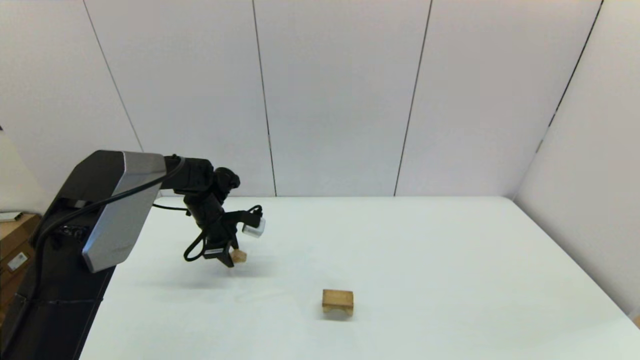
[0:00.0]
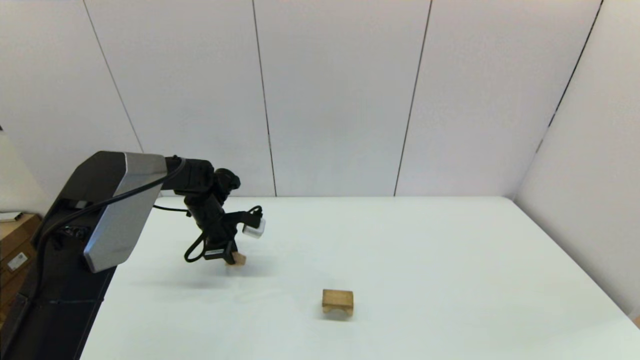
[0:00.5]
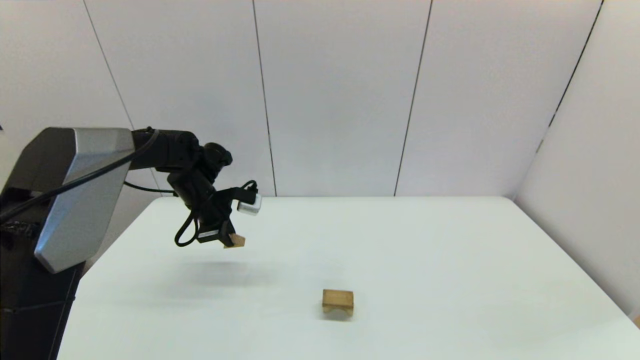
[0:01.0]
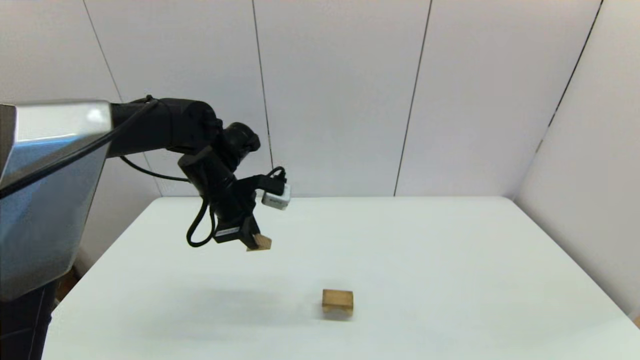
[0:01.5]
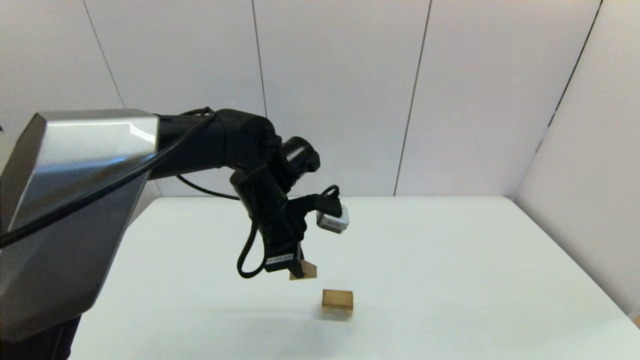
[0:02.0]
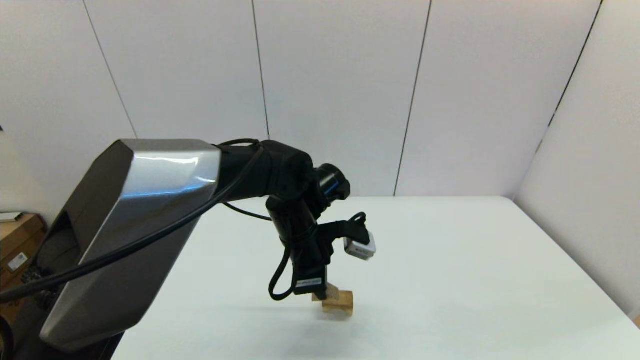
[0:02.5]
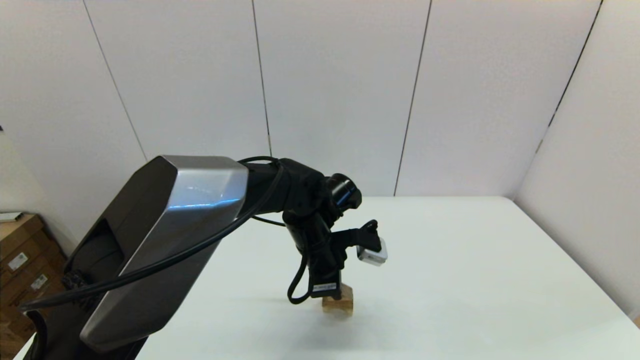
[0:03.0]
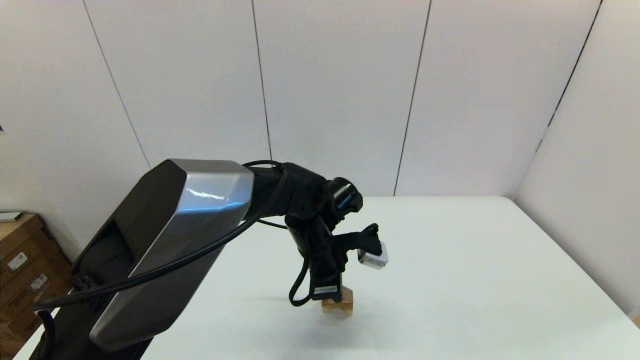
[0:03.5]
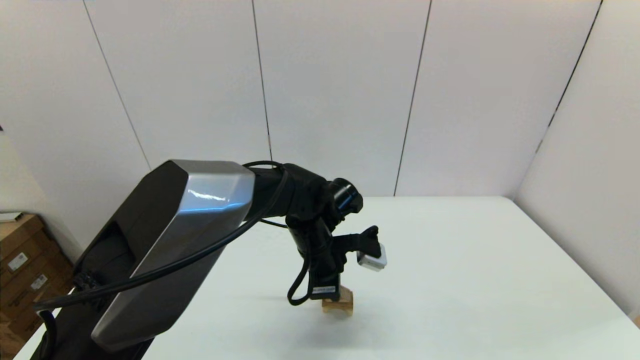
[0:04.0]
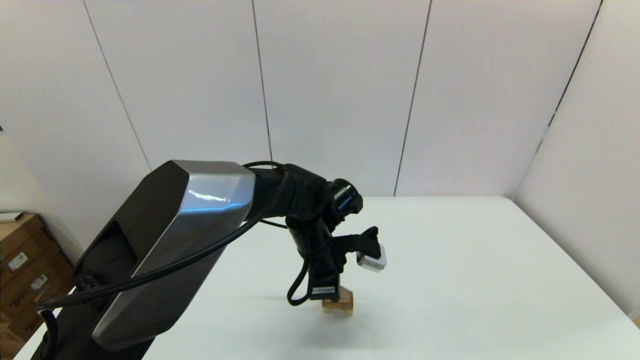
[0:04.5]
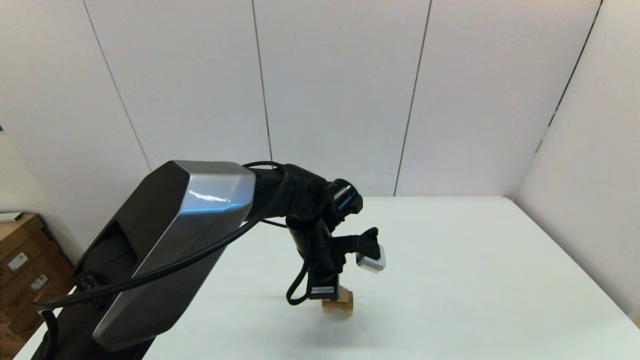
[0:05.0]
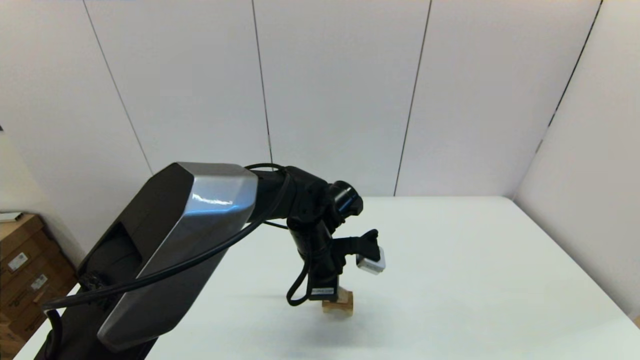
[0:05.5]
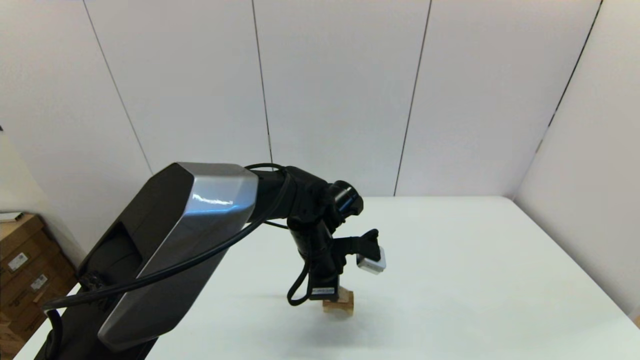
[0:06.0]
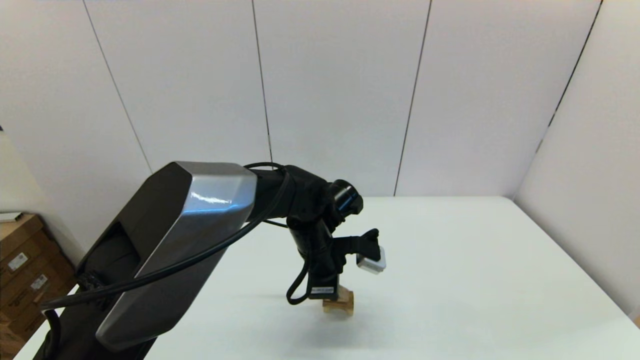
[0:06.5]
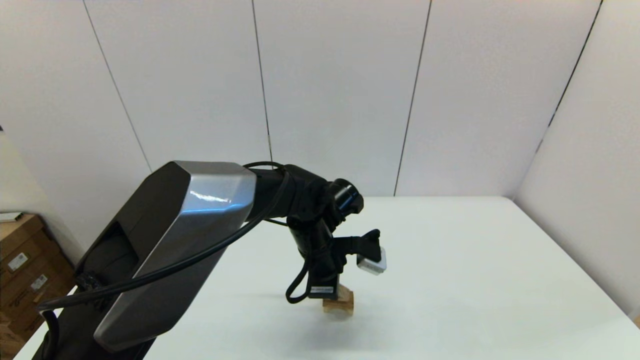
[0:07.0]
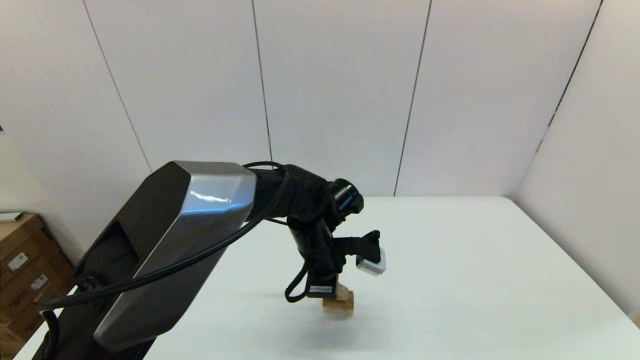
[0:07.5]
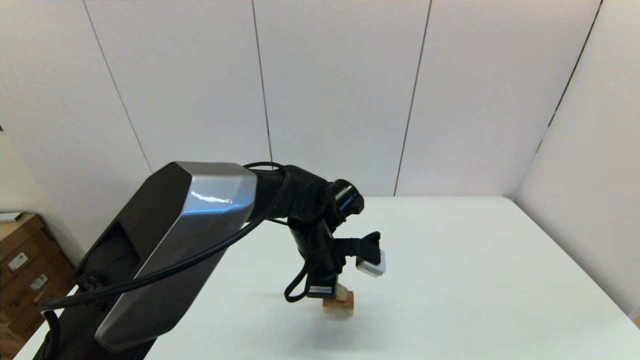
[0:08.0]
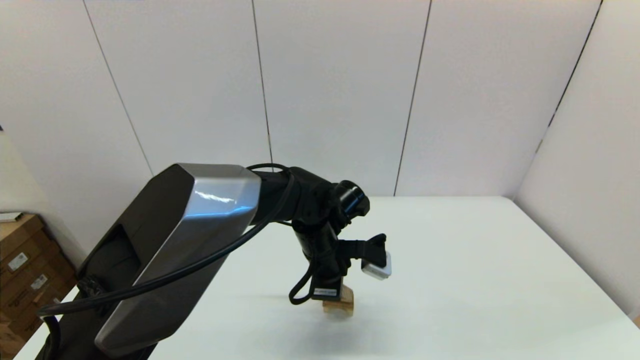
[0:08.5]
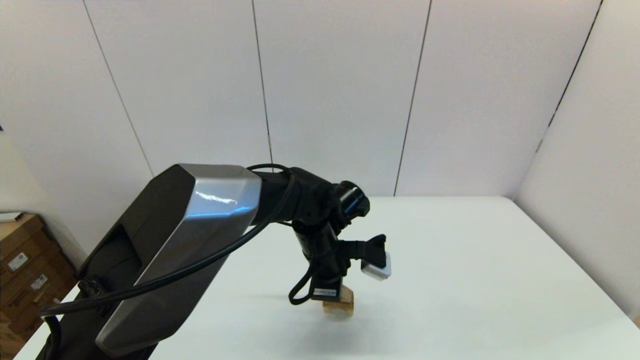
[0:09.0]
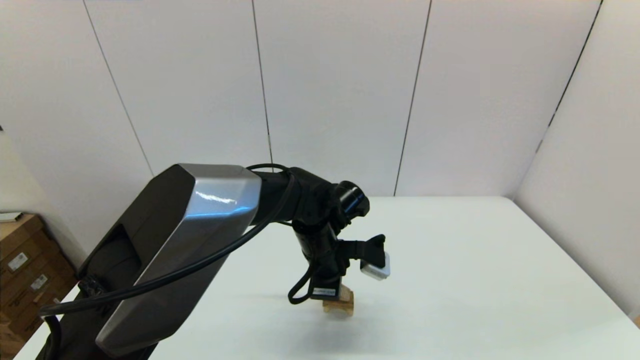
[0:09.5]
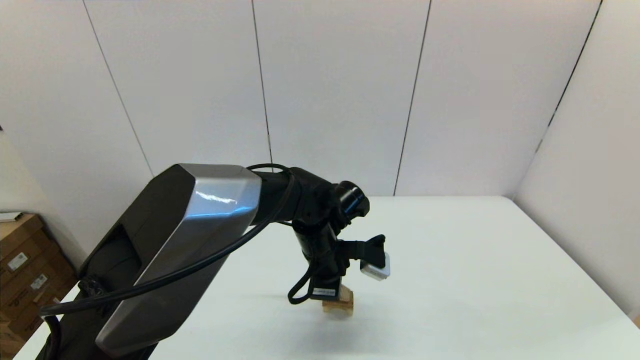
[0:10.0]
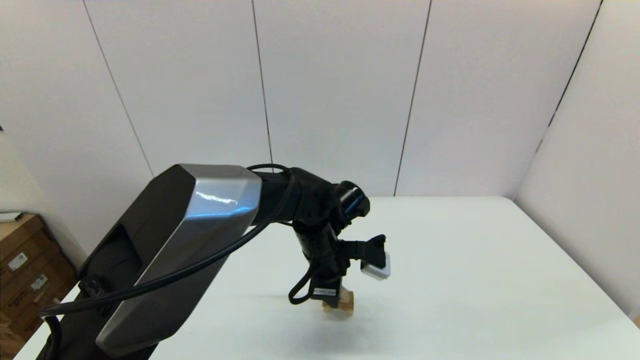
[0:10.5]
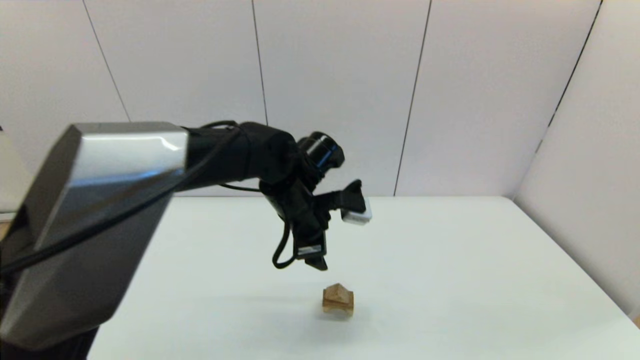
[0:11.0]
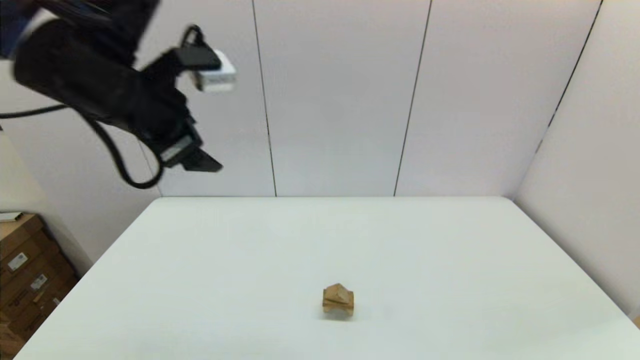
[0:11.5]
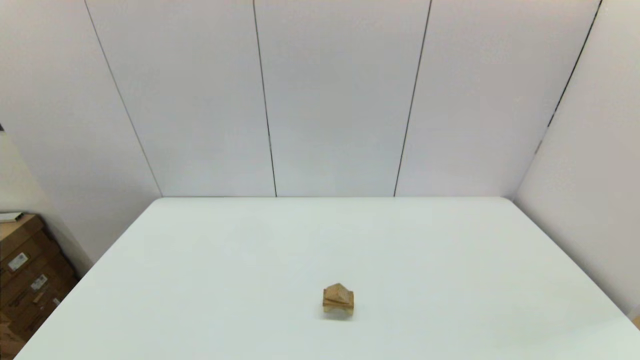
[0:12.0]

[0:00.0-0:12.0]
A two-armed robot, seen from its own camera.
Task of the whole recording: place the arched building blocks in the center of the table, set up the rectangular building blocks, and then set up the triangular building blocks.
0:00.0 to 0:02.0: The left gripper travels to the right, backward and upward by roughly 25 cm.
0:02.0 to 0:04.0: The left gripper heads downward and to the right, covering roughly 10 cm.
0:04.0 to 0:06.0: Both grippers stay put.
0:06.0 to 0:08.0: The grippers make only small movements.
0:08.0 to 0:10.0: Both grippers stay put.
0:10.0 to 0:12.0: The left gripper shifts approximately 50 cm to the left, upward and backward, and opens its fingers.

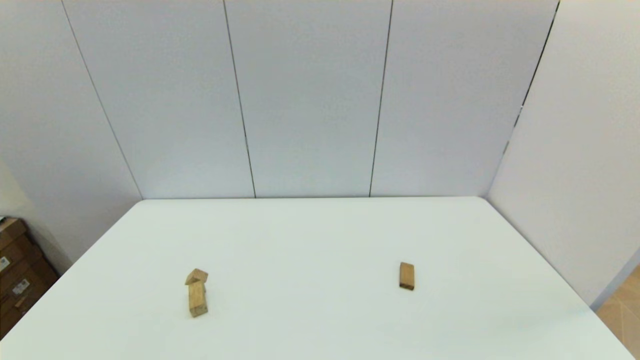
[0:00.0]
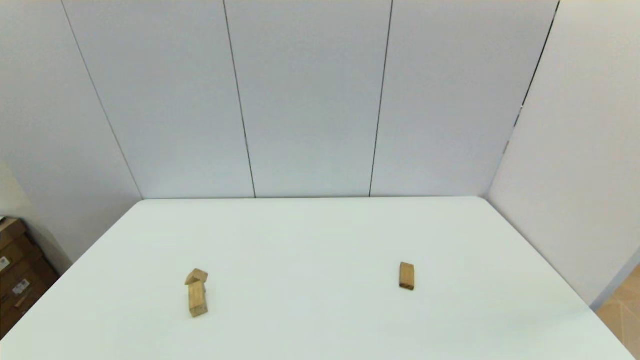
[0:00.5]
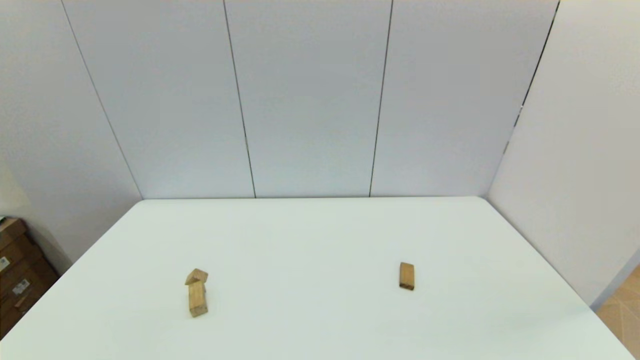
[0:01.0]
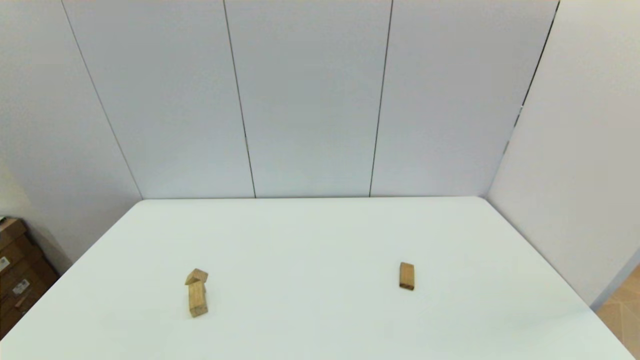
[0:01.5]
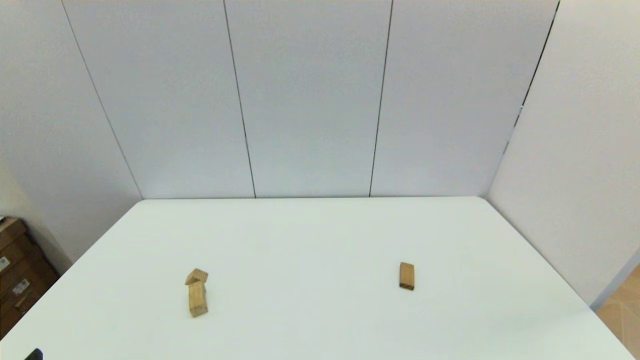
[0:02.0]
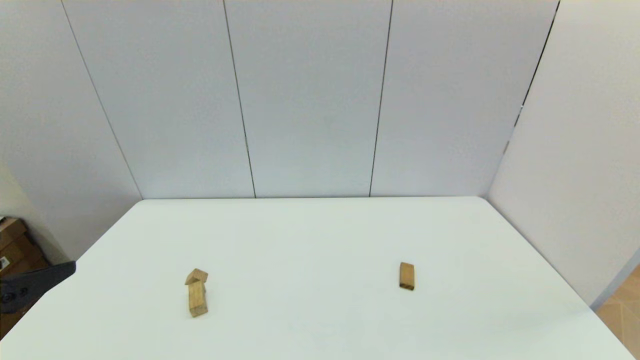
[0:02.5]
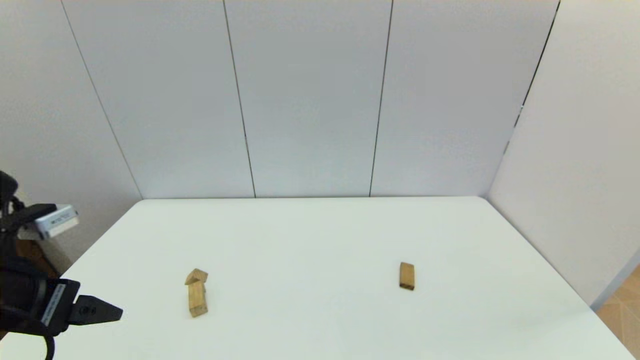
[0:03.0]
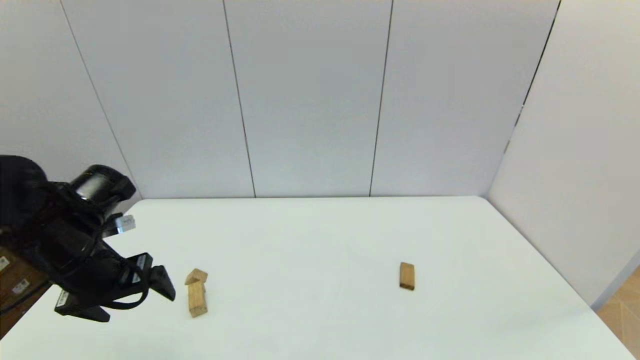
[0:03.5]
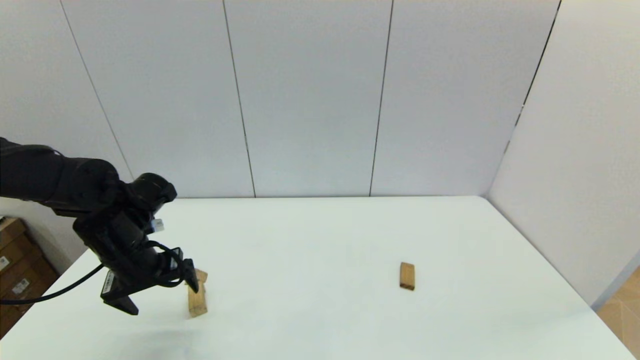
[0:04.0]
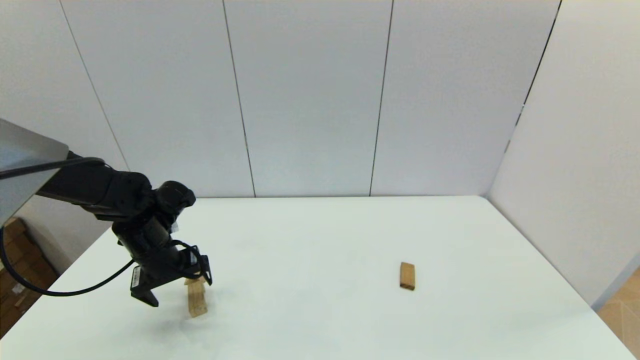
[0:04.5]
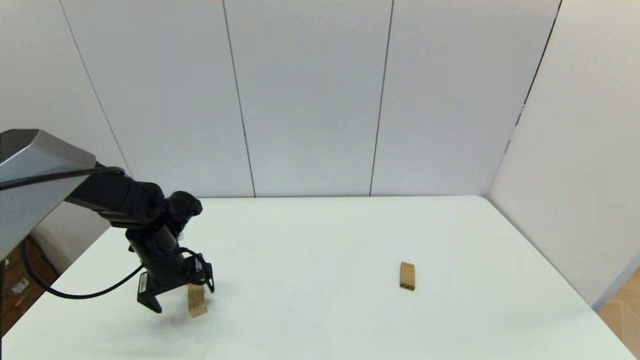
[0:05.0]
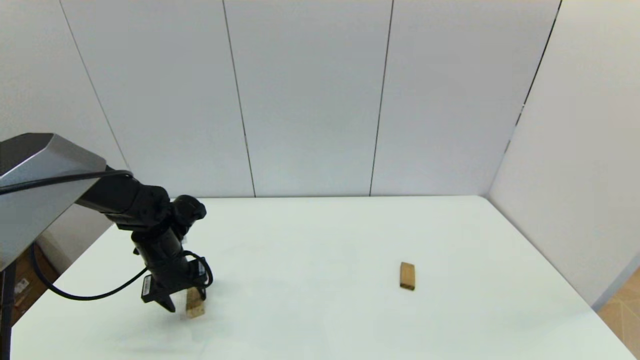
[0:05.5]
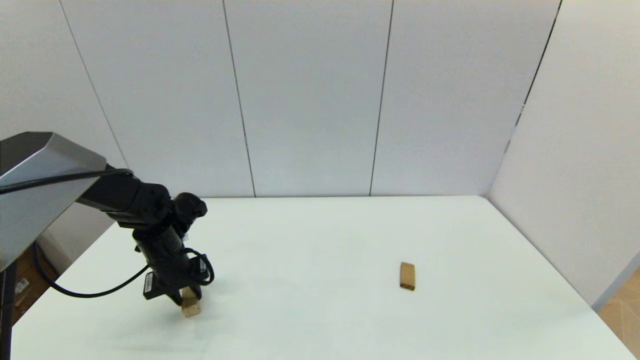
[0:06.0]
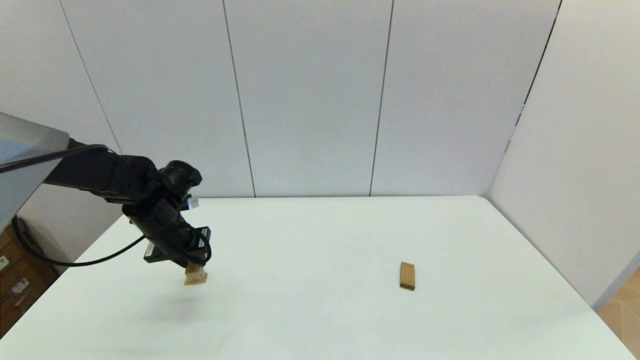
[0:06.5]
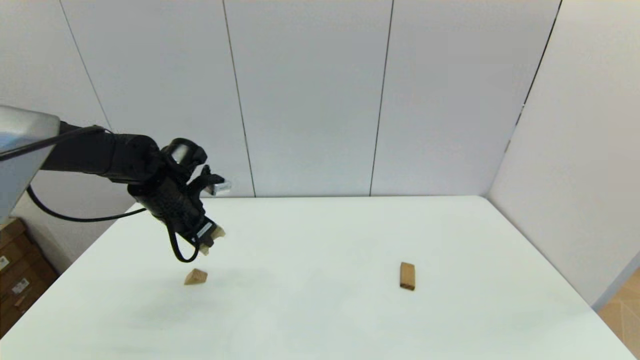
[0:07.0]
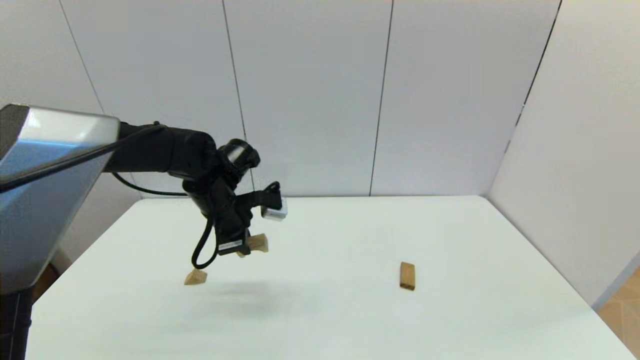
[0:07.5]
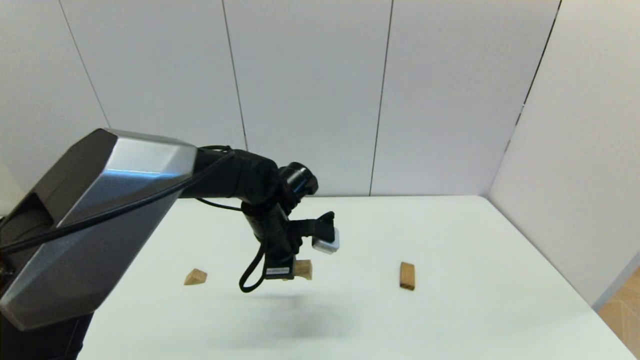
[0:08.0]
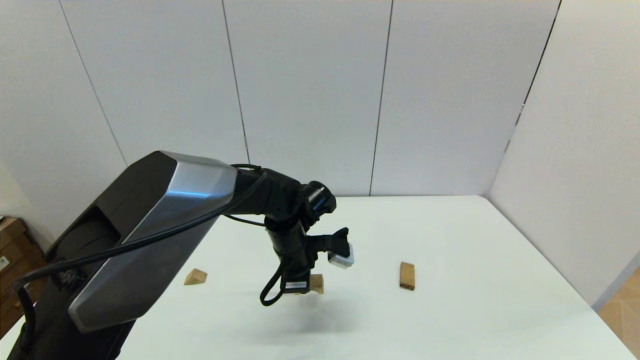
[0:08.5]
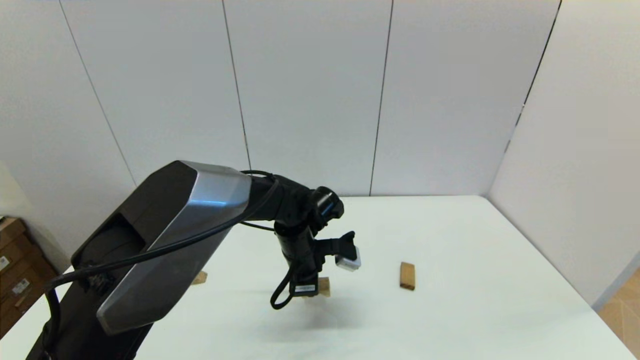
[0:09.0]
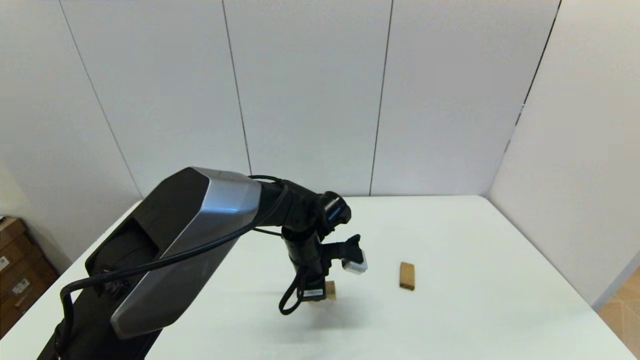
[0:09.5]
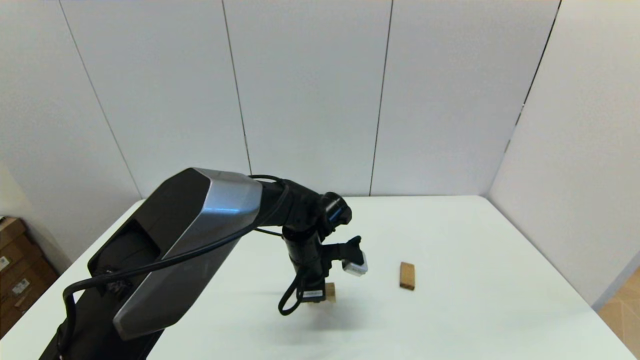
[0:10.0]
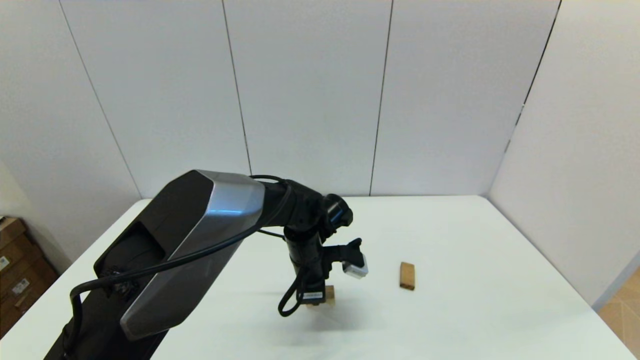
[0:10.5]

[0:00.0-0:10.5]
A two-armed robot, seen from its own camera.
Task of the whole recording: place the arched building blocks in the center of the table, set up the rectangular building blocks, and then set up the triangular building blocks.
Step, 0:02.0 to 0:05.5: Grasp the arch-shaped block with the left gripper.
0:02.0 to 0:04.0: The left gripper shifts some 30 cm forward.
0:04.0 to 0:06.5: The left gripper travels forward by approximately 5 cm, travels downward and back again, some 10 cm each way, and closes up.
0:06.5 to 0:08.5: The left gripper travels to the right by roughly 20 cm.
0:08.5 to 0:10.5: The grippers stay close to where they were, moving slightly.
